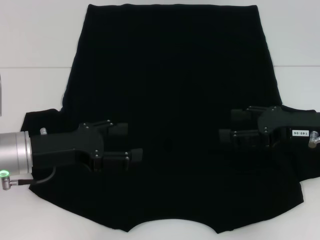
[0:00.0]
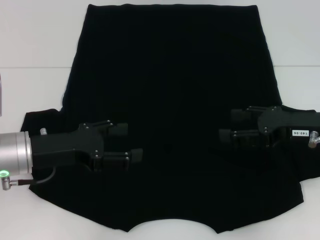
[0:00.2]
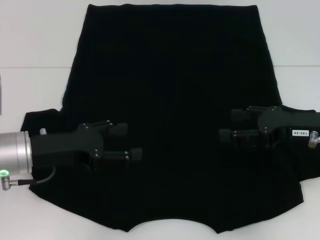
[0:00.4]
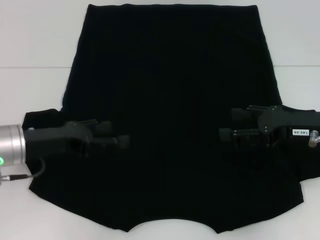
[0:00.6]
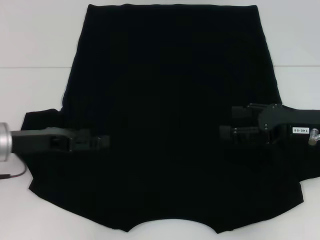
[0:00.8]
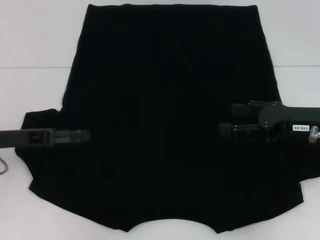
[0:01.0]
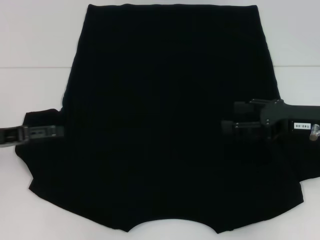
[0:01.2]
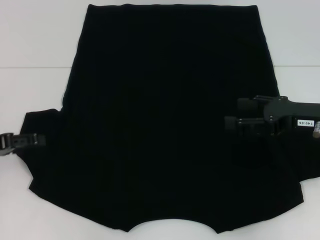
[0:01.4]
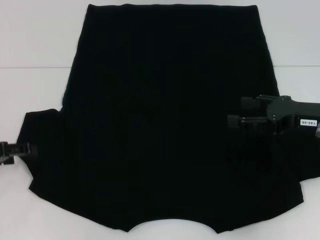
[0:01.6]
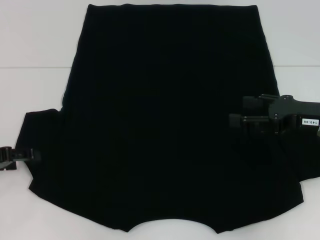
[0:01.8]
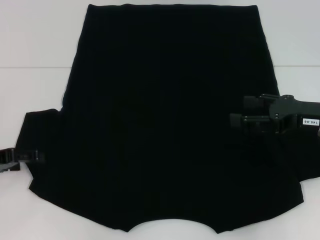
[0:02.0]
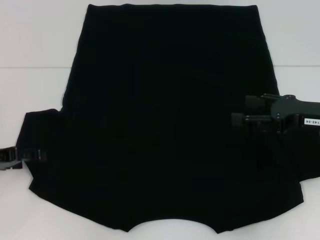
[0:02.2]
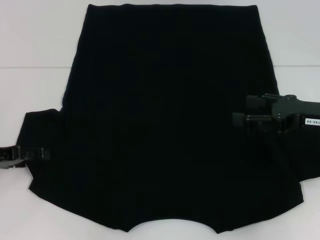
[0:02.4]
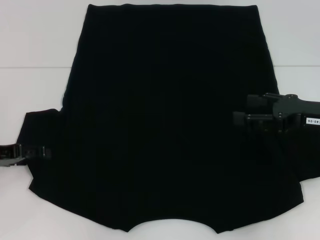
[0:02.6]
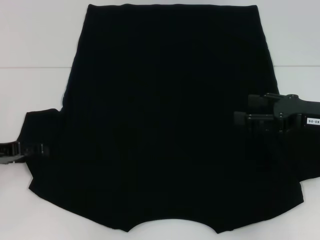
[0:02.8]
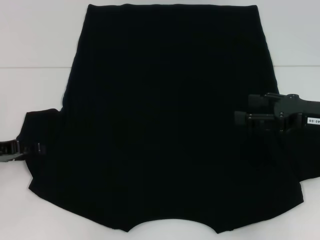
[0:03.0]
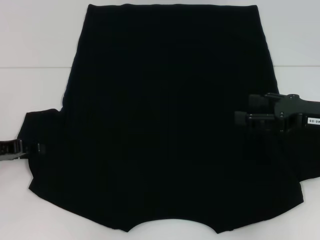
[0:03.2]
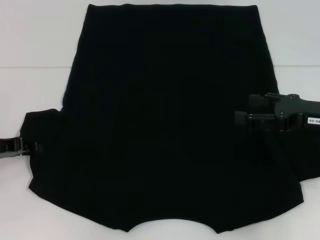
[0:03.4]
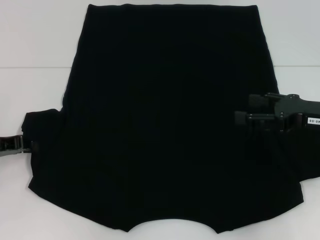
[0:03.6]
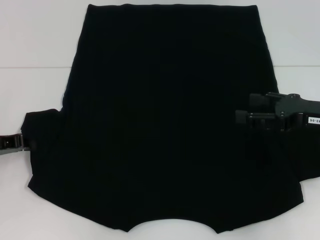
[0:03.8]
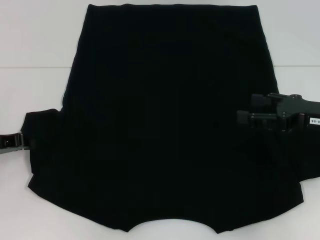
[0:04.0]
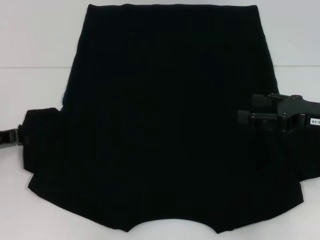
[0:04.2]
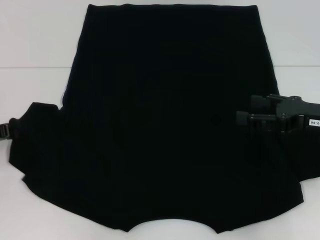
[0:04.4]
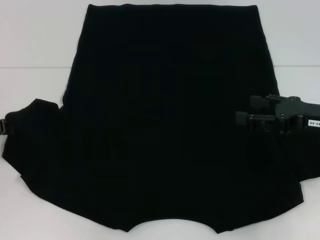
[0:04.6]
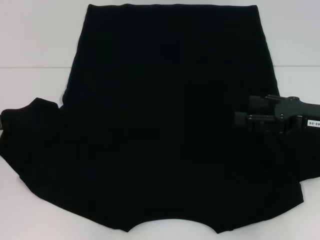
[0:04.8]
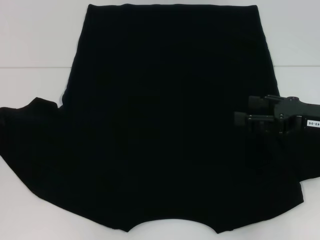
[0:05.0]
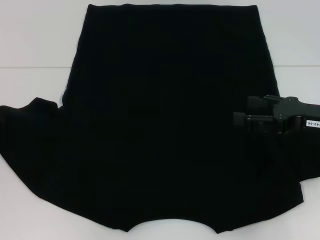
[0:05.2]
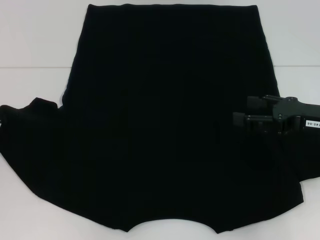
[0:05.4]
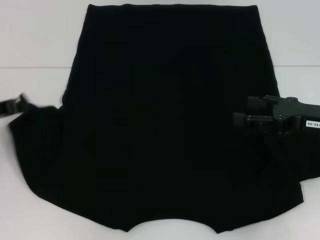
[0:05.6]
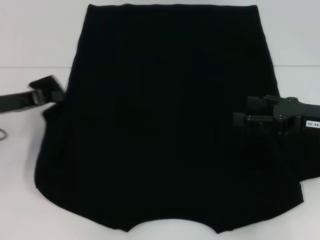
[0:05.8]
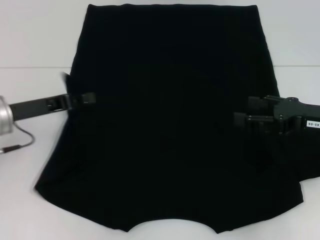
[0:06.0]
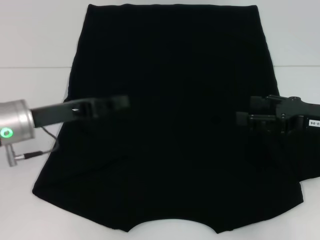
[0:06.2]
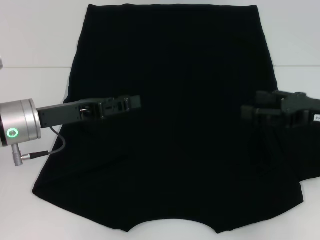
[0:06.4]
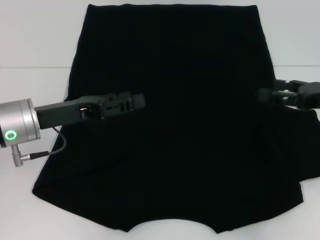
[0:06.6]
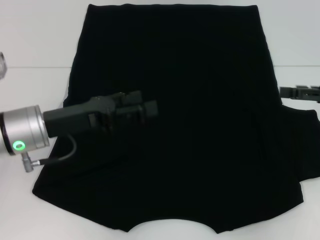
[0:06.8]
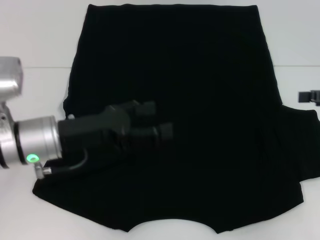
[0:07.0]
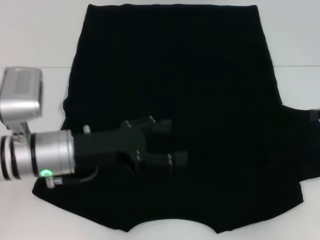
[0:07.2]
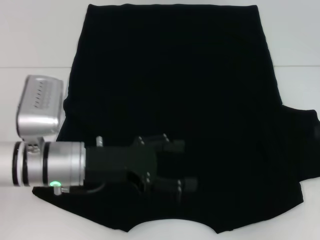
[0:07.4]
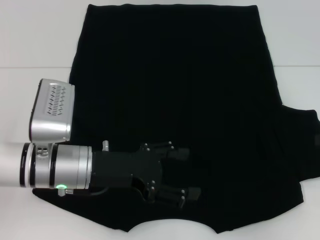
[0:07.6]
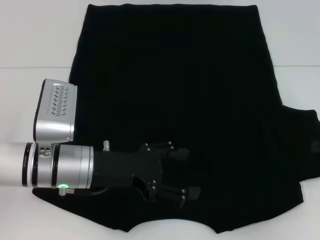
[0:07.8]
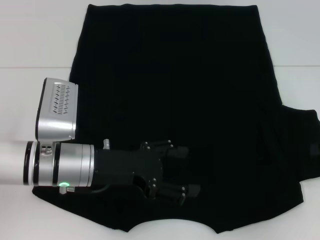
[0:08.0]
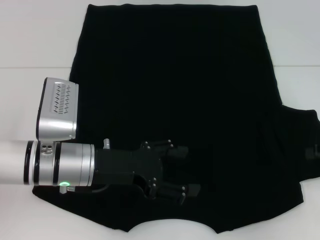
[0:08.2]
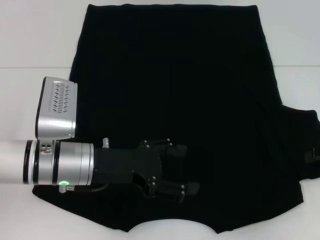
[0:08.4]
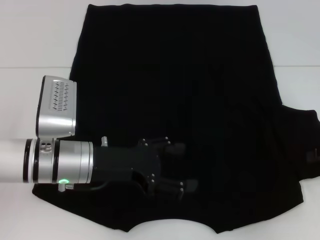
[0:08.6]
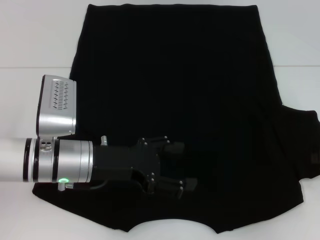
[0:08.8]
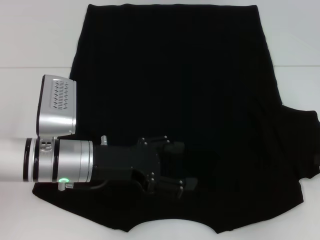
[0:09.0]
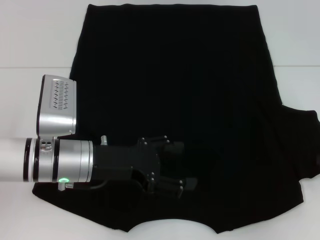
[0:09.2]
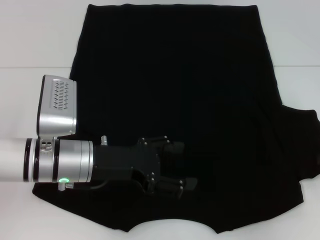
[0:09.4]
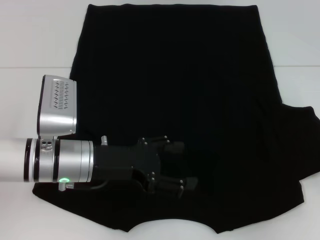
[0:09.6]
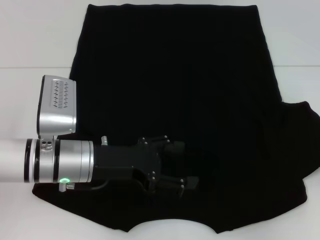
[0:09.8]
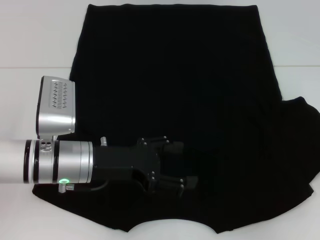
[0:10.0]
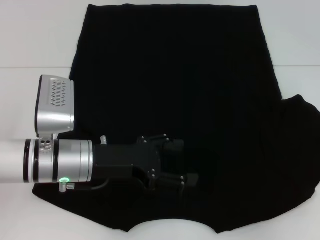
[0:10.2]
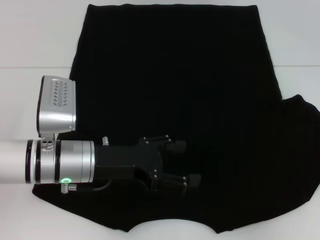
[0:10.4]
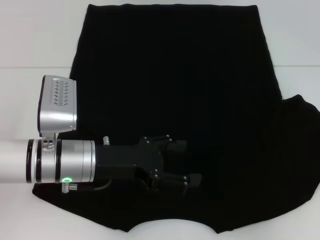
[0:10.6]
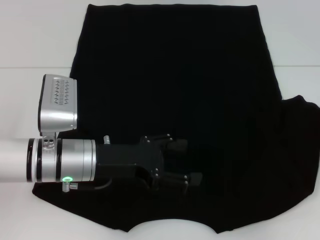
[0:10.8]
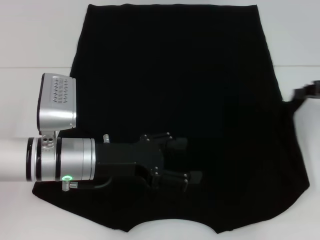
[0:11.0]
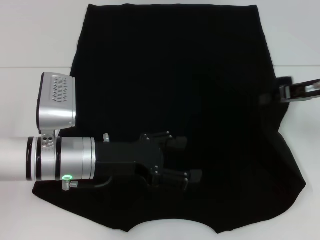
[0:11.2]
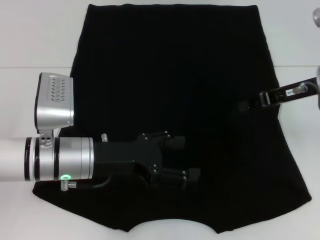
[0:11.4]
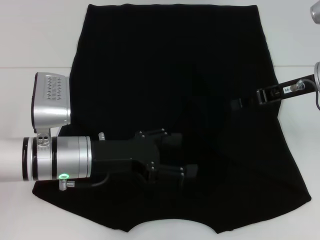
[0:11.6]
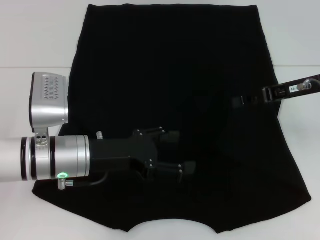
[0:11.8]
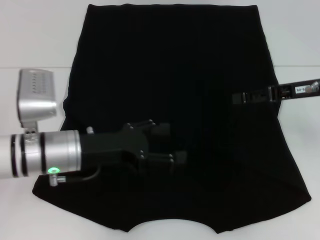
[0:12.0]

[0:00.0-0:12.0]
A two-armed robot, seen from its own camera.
Step, 0:00.0 to 0:06.0: Fold the bottom left sleeve with your left hand.
Step, 0:06.2 to 0:11.6: Fold the bottom right sleeve with your right hand.
0:00.0 to 0:01.6: The left gripper heads to the left, covering some 10 cm.
0:01.6 to 0:03.0: The grippers stay close to where they were, moving slightly.
0:03.0 to 0:04.4: The left gripper closes.
0:04.4 to 0:06.0: The left gripper travels to the right by about 10 cm.
0:06.0 to 0:07.6: The grippers both shift to the right by some 10 cm. The left gripper opens up.
0:09.0 to 0:10.4: The right gripper closes.
0:10.4 to 0:12.0: The right gripper is displaced to the left by about 15 cm, and opens.

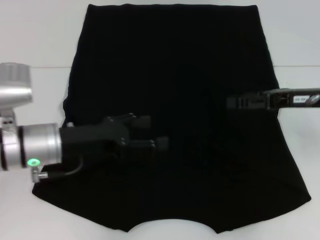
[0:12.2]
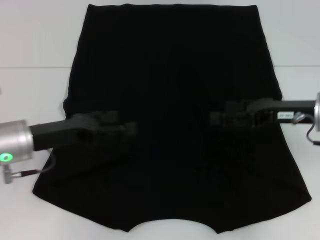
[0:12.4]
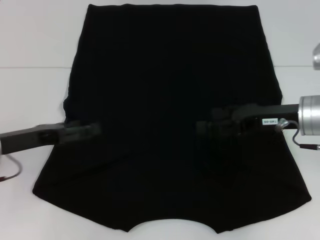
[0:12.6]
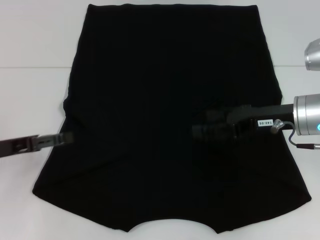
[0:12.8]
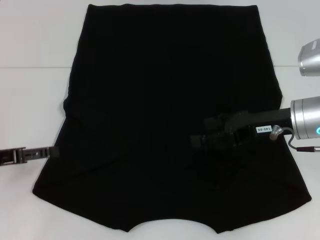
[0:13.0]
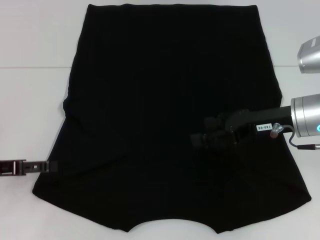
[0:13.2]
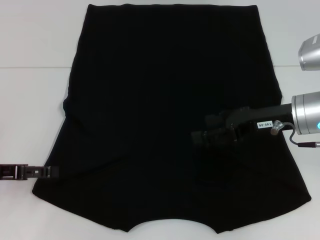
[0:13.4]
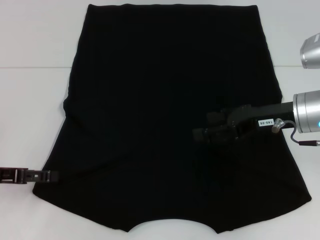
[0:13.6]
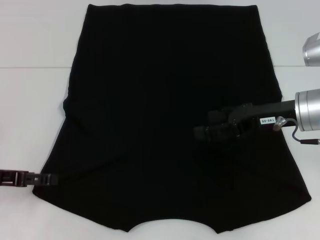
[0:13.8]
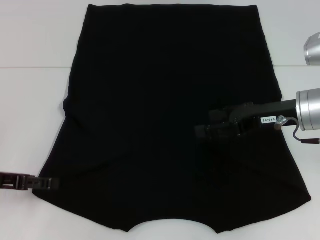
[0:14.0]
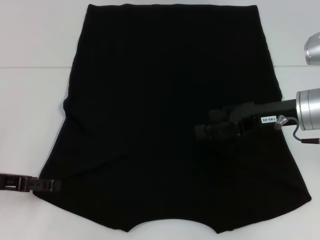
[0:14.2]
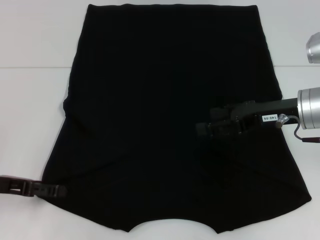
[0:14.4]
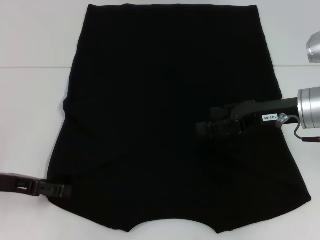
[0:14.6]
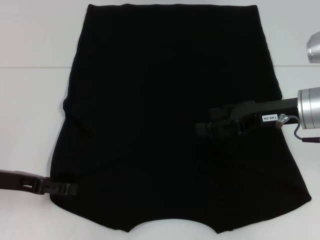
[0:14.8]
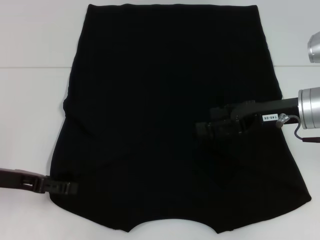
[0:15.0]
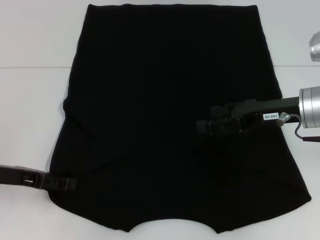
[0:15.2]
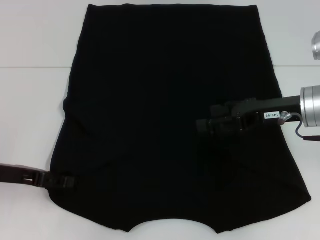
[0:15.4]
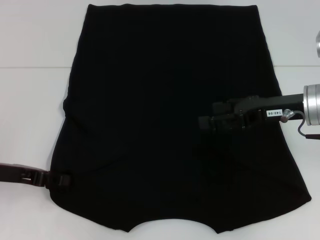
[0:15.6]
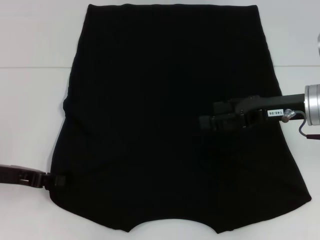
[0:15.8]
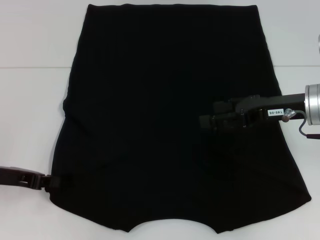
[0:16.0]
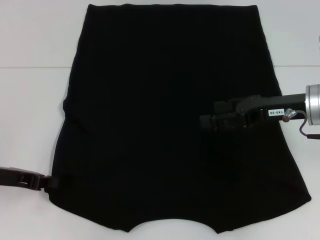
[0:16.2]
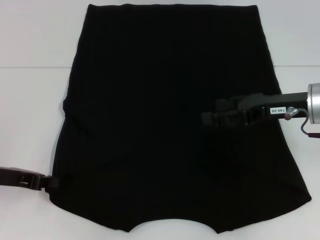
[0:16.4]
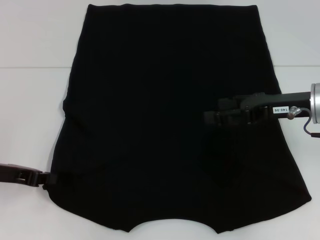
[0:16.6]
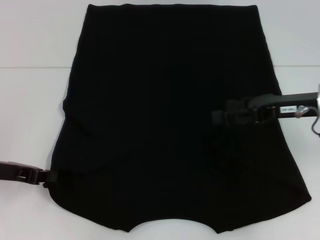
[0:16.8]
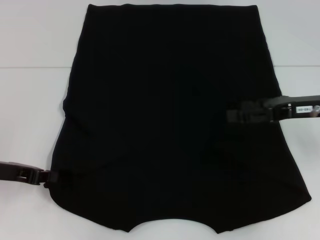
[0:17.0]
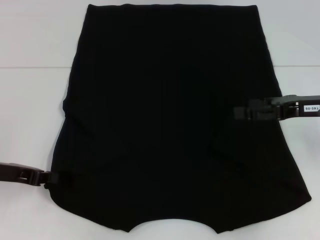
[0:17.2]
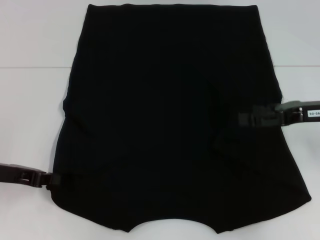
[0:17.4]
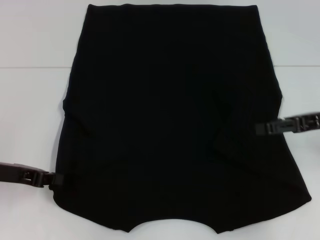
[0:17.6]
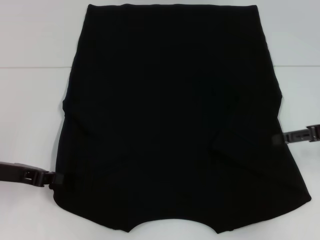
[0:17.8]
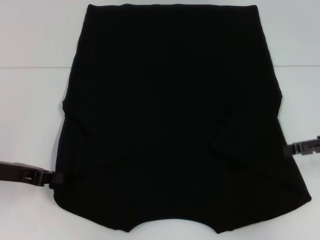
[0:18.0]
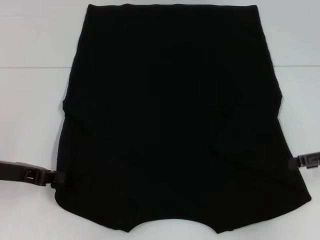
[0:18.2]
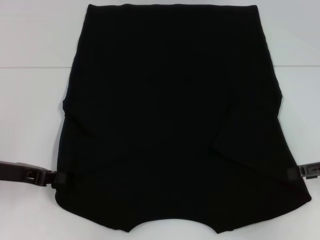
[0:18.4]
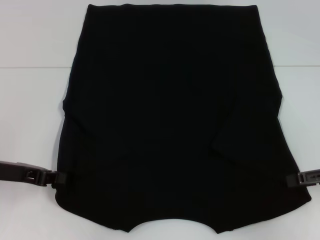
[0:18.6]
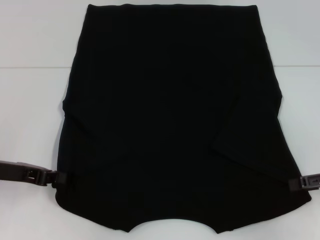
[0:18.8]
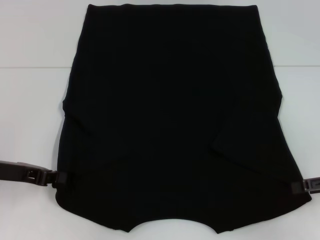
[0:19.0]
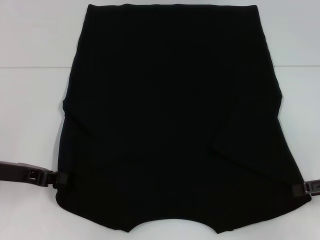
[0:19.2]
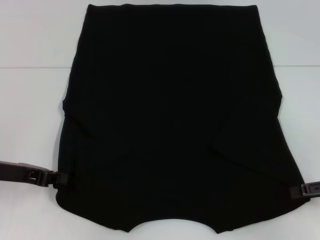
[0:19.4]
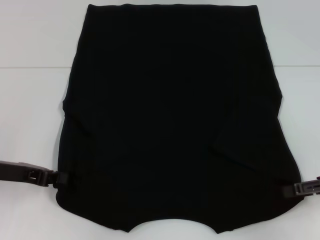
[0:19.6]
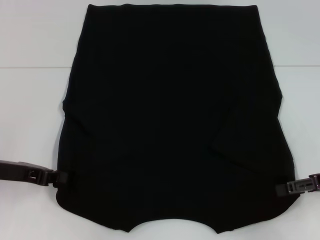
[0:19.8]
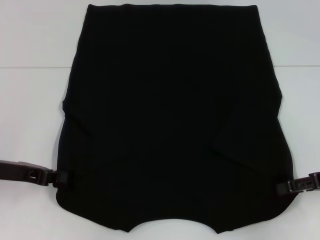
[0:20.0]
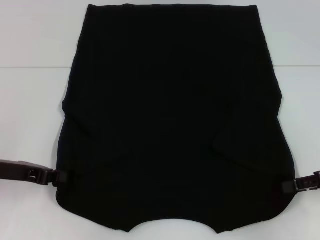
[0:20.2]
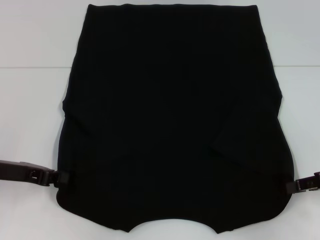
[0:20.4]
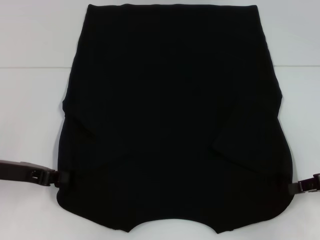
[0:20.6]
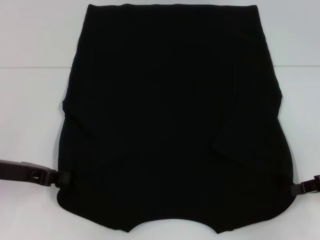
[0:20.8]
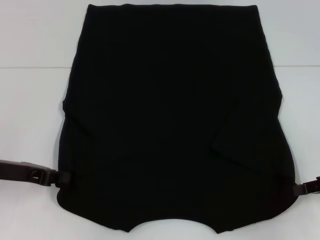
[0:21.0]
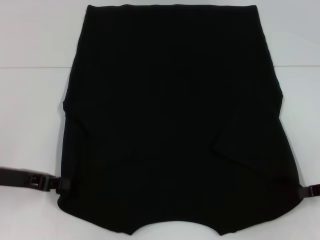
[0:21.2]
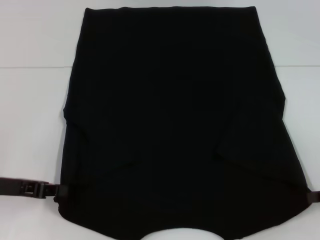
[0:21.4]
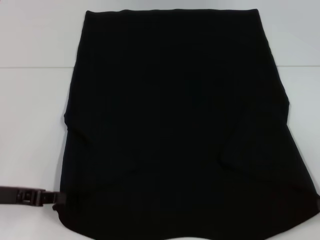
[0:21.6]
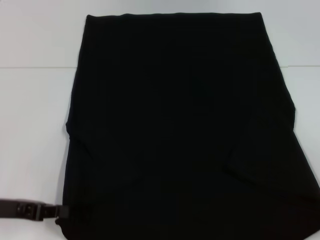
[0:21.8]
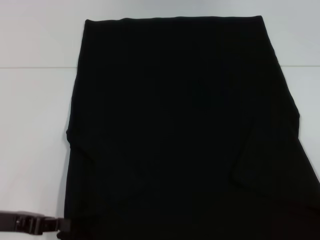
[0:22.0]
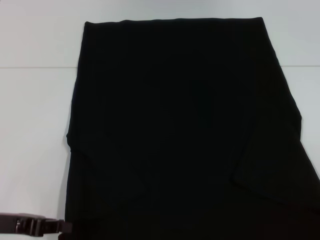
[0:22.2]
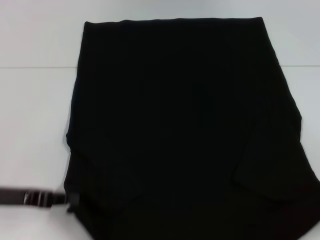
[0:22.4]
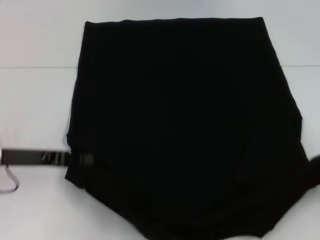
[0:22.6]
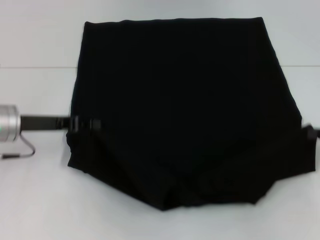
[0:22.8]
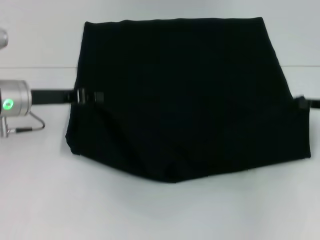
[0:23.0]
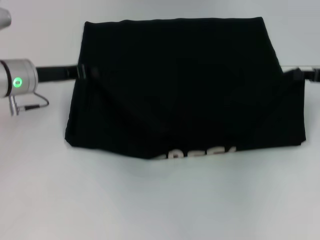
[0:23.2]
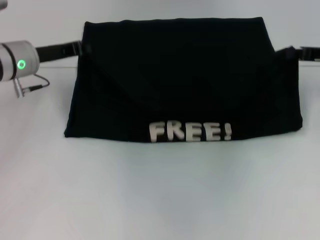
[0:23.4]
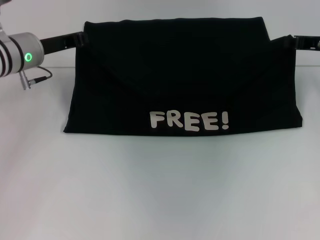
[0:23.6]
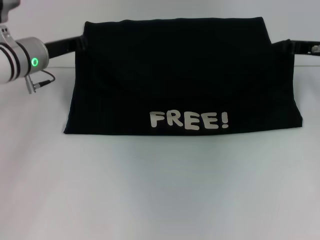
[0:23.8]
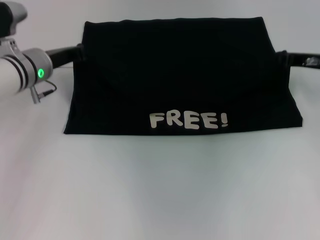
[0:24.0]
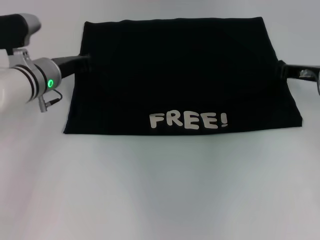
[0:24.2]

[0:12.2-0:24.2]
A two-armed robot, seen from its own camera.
Step, 0:12.2 to 0:16.8: Grab the bottom left corner with your left hand.
Step, 0:17.0 to 0:21.2: Grab the bottom right corner with your right hand.
0:12.2 to 0:13.8: The left gripper heads to the left, covering roughly 15 cm.
0:13.8 to 0:15.2: The grippers stay close to where they were, moving slightly.
0:16.6 to 0:18.2: The right gripper shifts about 10 cm to the right.
0:18.2 to 0:19.8: There are only small adjustments of the grippers.
0:19.8 to 0:21.2: The right gripper closes.
0:21.2 to 0:22.6: The right gripper moves roughly 10 cm backward and comes back.
0:22.6 to 0:24.2: The left gripper travels forward and to the right by approximately 15 cm. Meanwhile the right gripper shifts about 20 cm forward and to the left.
